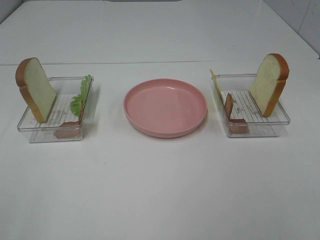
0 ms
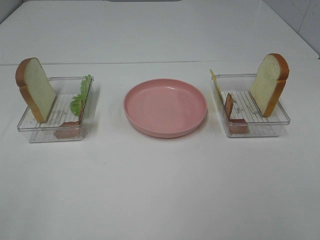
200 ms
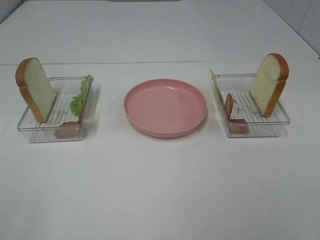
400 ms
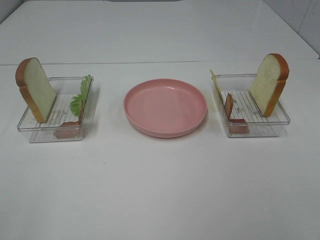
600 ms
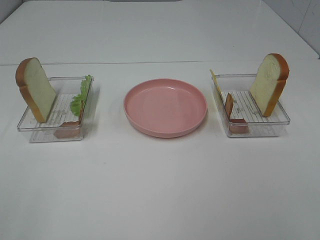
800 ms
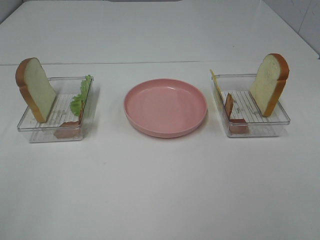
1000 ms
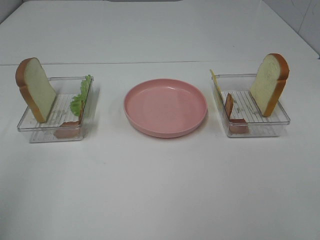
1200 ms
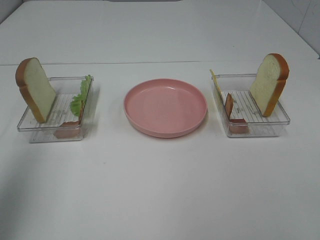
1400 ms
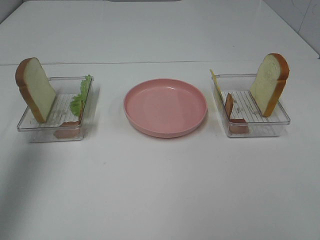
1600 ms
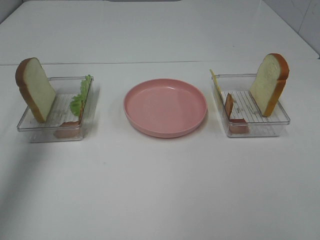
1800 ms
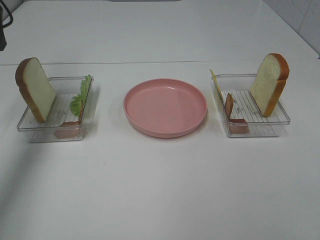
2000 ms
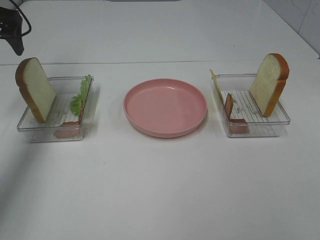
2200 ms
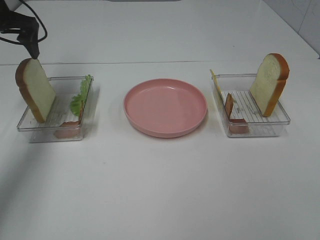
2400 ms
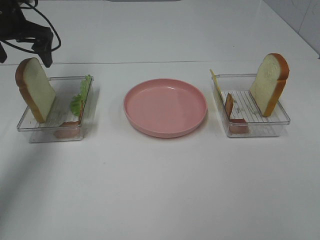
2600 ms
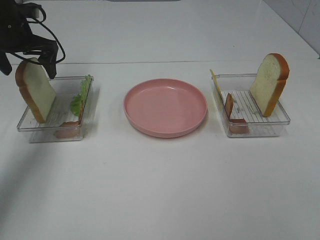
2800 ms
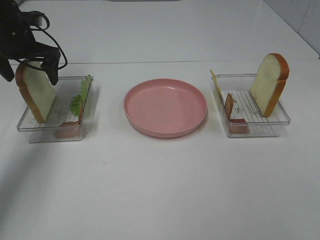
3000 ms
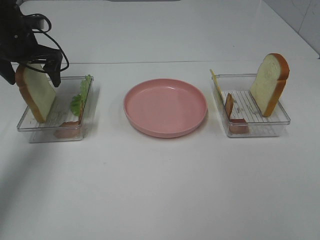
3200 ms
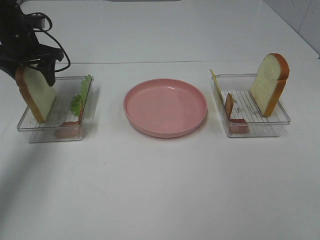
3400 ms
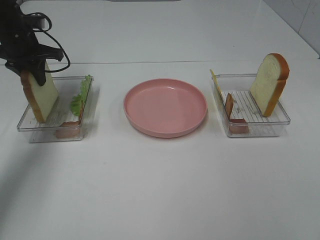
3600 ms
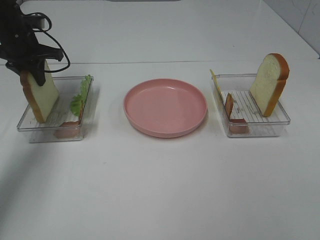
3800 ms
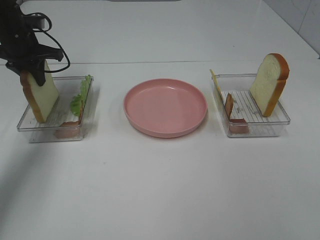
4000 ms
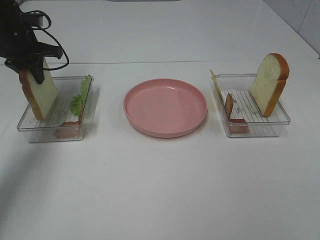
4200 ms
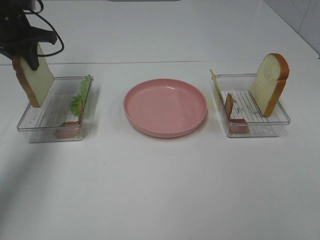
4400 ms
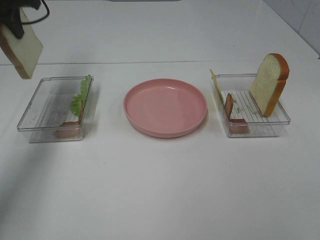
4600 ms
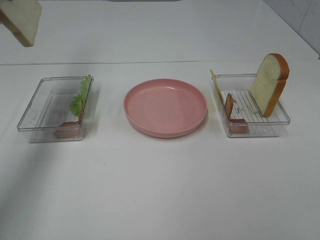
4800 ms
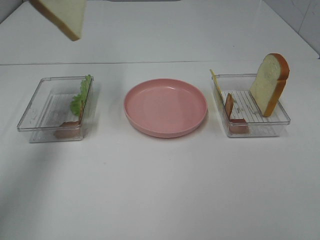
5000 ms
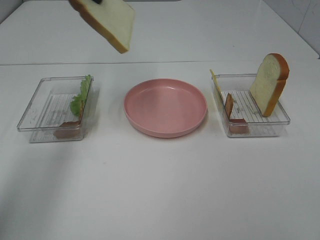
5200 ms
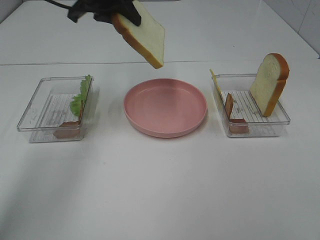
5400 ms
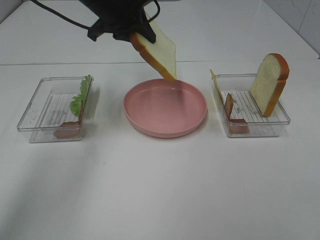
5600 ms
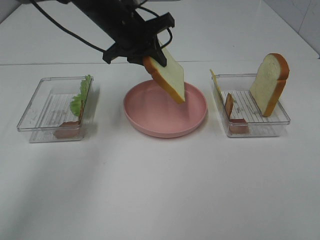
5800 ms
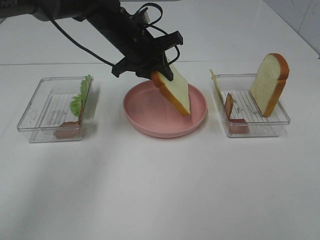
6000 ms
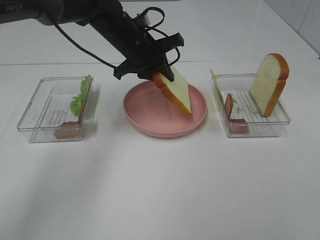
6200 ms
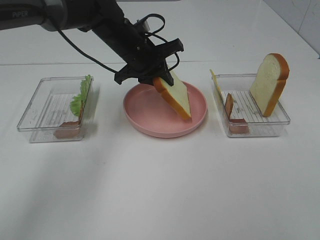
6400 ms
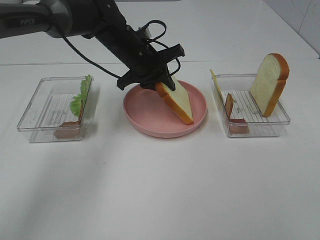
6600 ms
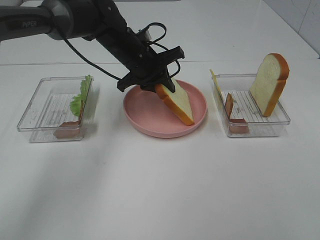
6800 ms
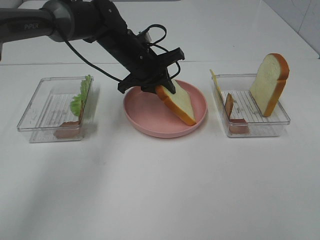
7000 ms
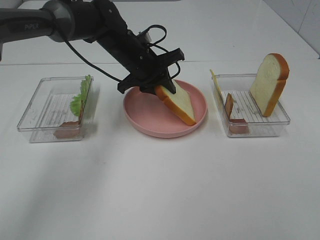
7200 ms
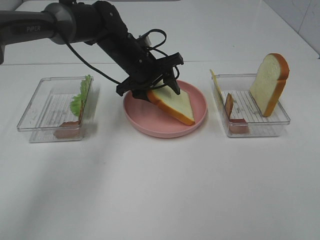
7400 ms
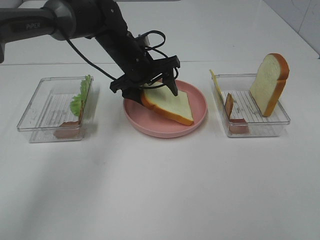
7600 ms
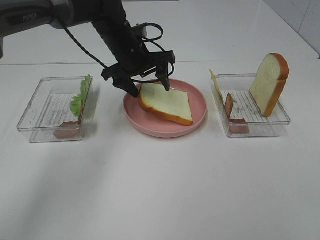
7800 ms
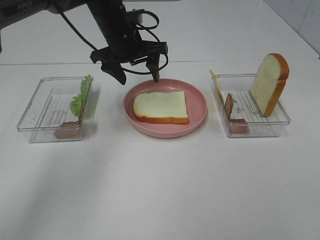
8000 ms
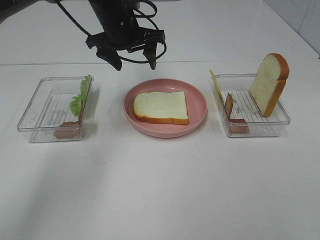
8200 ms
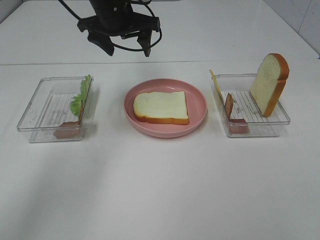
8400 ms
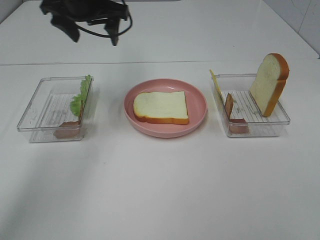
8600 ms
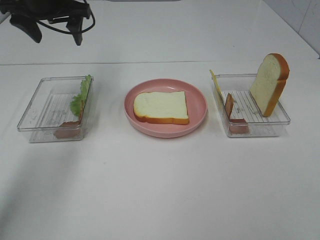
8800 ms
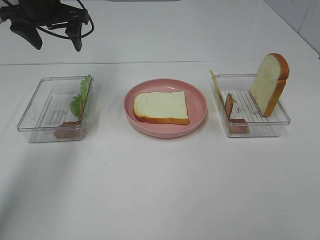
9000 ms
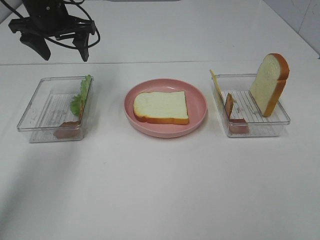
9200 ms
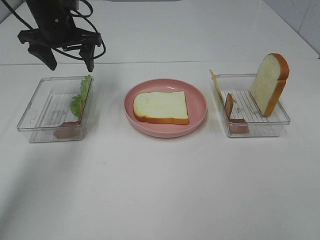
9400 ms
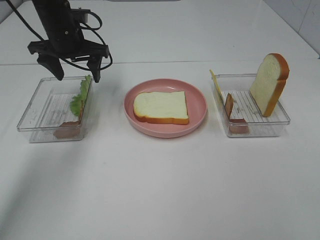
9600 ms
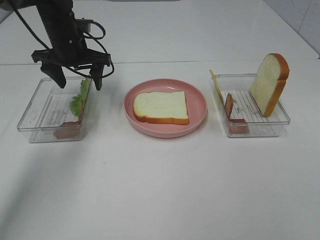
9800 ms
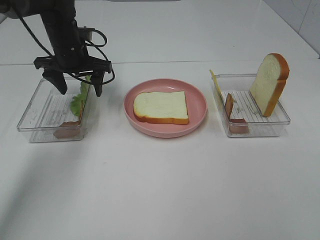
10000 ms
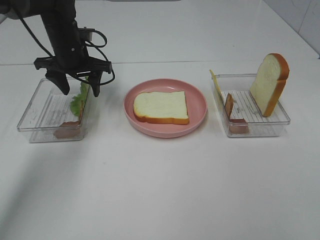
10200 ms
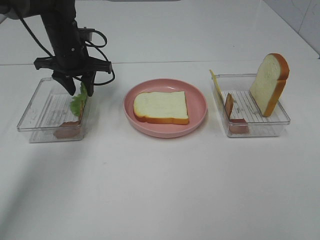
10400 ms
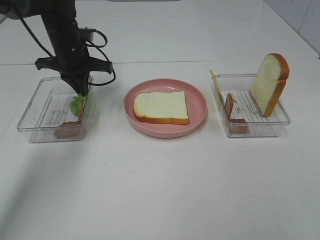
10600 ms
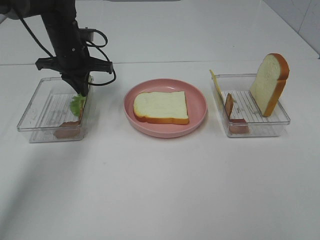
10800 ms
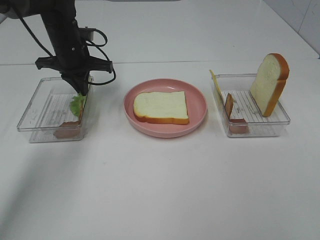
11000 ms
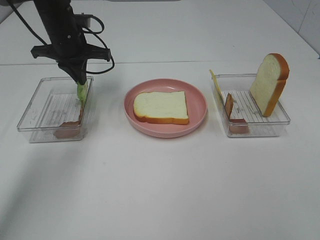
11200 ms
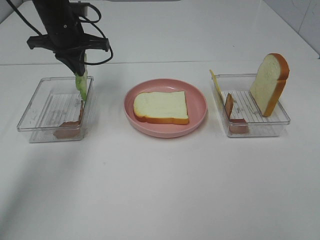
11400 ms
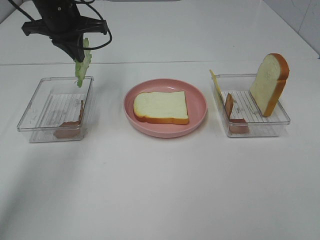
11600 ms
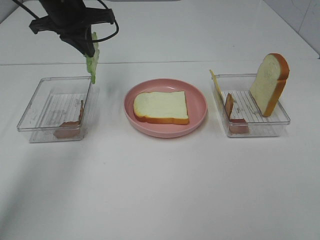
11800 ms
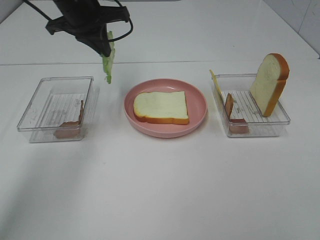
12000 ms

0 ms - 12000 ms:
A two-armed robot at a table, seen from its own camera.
Task of the whole recording: Make sandwiches.
Step, 0 ms - 3800 ms: Left hand:grab the bread slice.
Step, 4000 ms - 7800 ms: Left hand:place the bread slice on the plate.
Step, 8000 ms - 11000 ms: Left hand:grab the lettuce slice.
0 ms - 1600 ms: The left gripper goes some 25 cm forward.
1600 ms - 3000 ms: The left gripper heads forward and downward, covering approximately 30 cm.
3000 ms - 4400 ms: The left gripper closes its fingers.
4400 ms - 6000 ms: The left gripper heads to the right, covering approximately 25 cm.
6000 ms - 7600 ms: The left gripper opens up.
7600 ms - 9000 ms: The left gripper travels to the left and upward by about 20 cm.
9000 ms - 10400 ms: The left gripper goes roughly 10 cm downward, and closes.
10400 ms - 12000 ms: The left gripper is displaced upward by approximately 10 cm, and closes up.

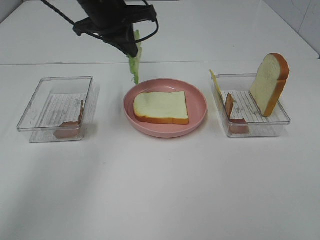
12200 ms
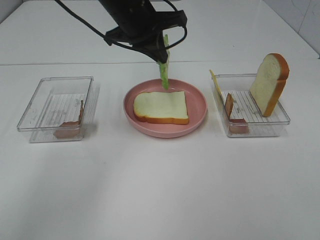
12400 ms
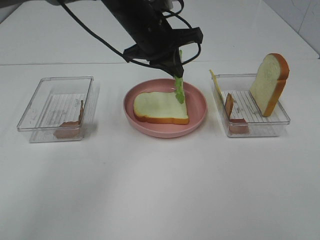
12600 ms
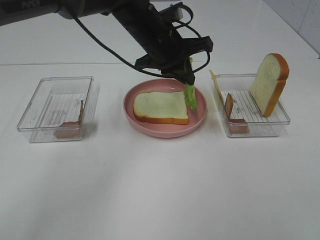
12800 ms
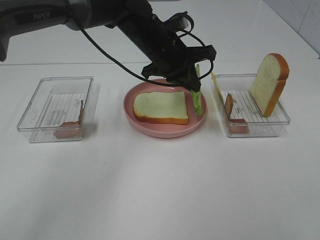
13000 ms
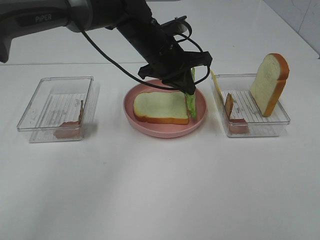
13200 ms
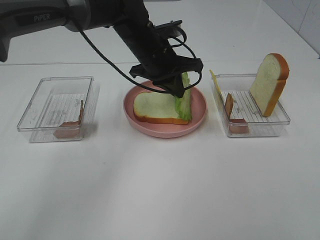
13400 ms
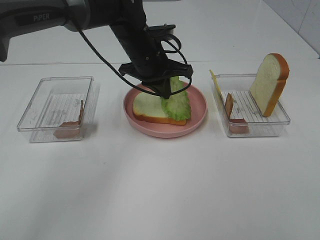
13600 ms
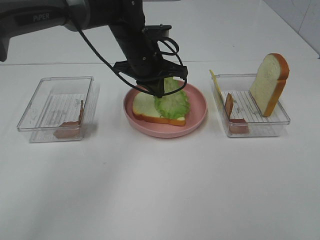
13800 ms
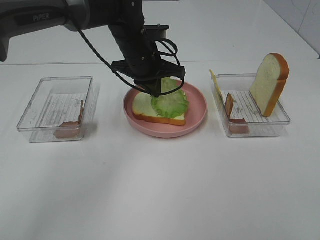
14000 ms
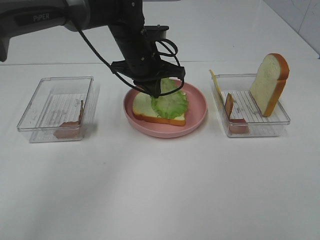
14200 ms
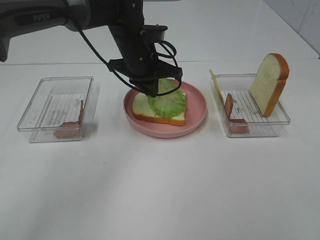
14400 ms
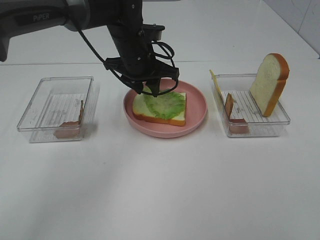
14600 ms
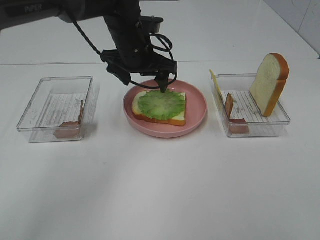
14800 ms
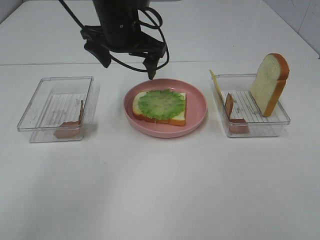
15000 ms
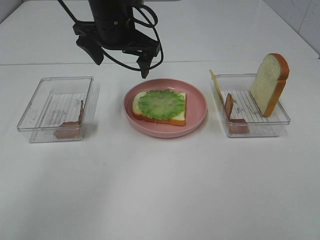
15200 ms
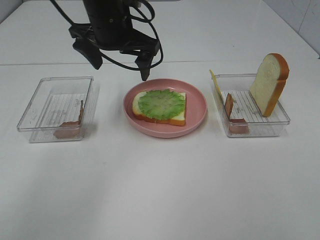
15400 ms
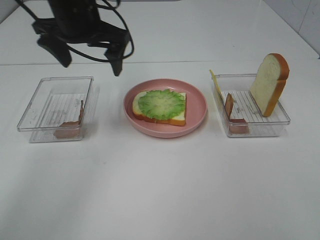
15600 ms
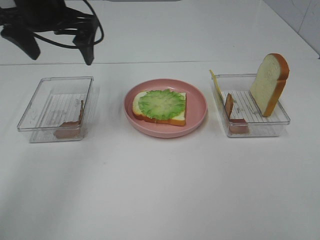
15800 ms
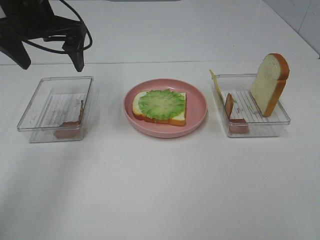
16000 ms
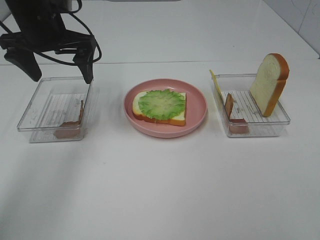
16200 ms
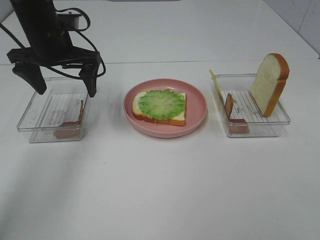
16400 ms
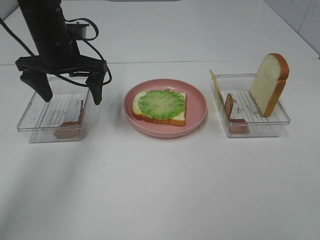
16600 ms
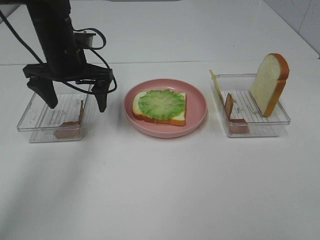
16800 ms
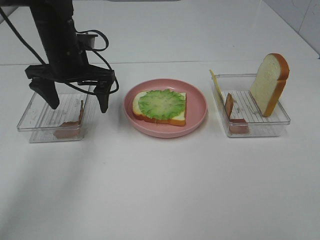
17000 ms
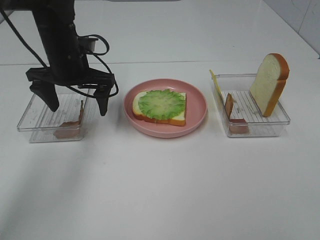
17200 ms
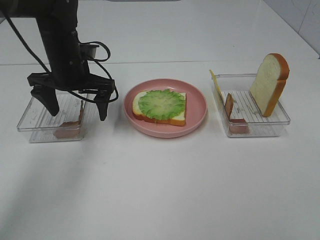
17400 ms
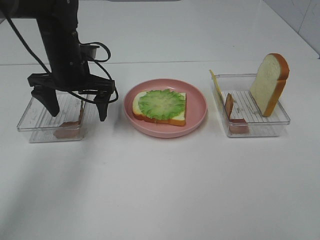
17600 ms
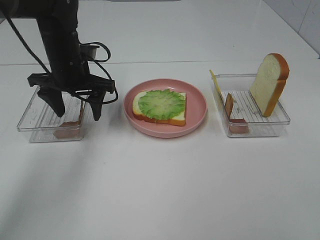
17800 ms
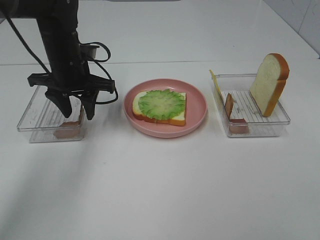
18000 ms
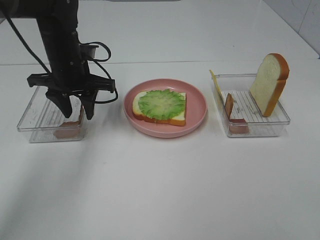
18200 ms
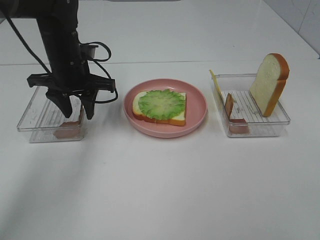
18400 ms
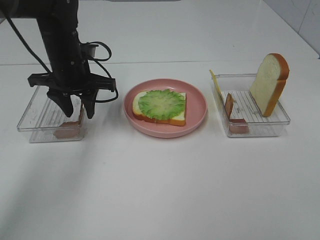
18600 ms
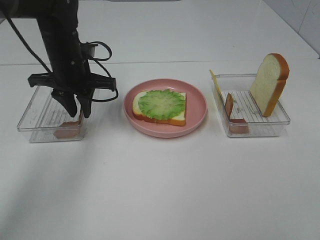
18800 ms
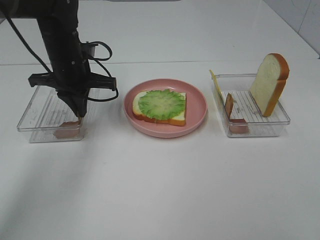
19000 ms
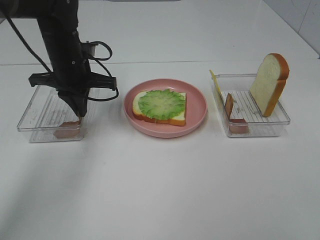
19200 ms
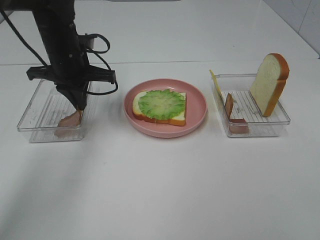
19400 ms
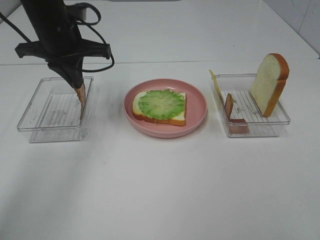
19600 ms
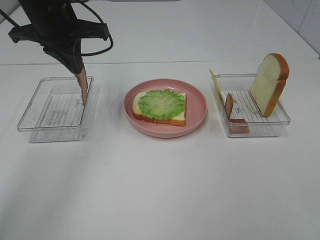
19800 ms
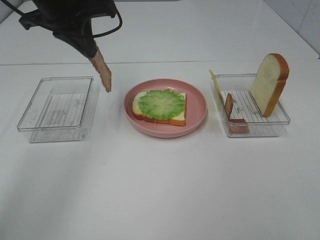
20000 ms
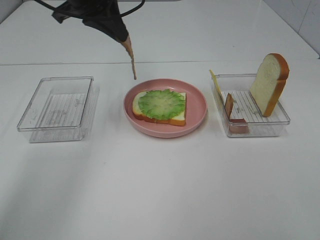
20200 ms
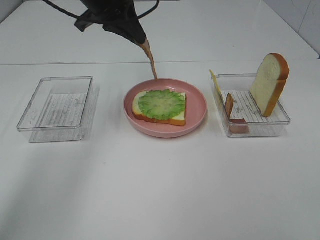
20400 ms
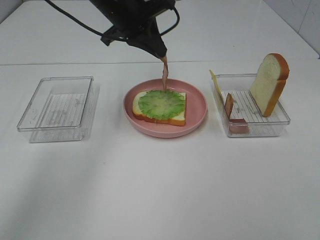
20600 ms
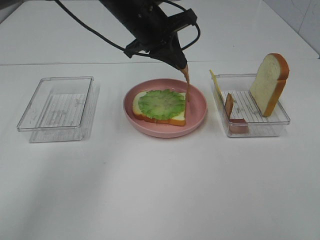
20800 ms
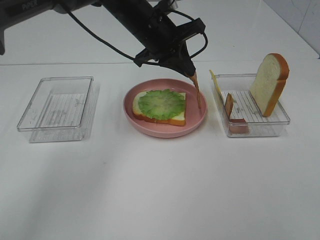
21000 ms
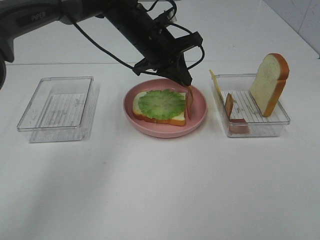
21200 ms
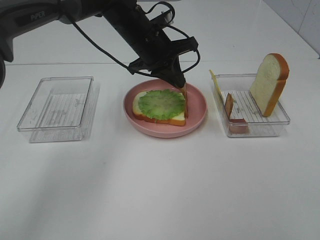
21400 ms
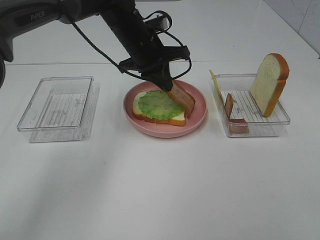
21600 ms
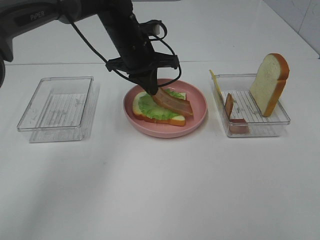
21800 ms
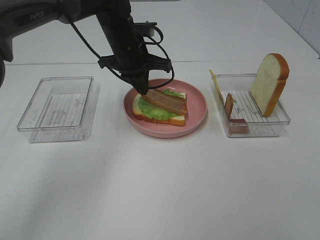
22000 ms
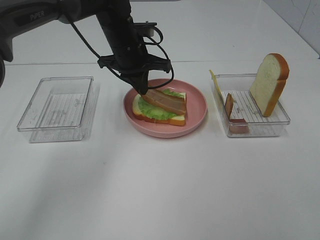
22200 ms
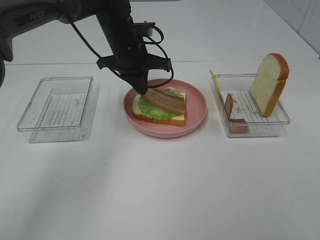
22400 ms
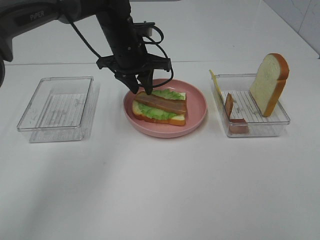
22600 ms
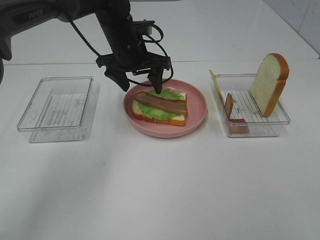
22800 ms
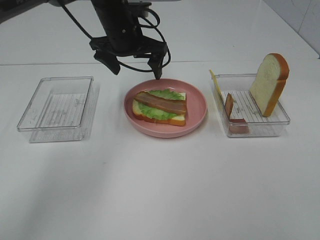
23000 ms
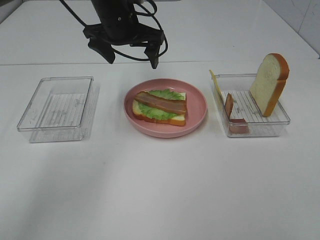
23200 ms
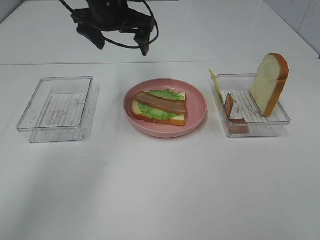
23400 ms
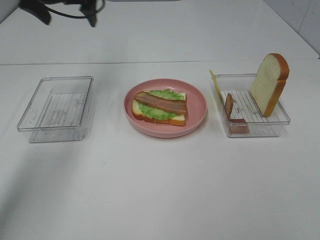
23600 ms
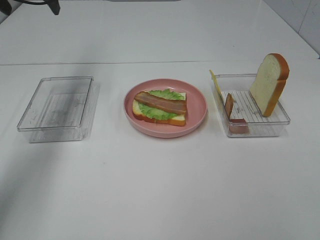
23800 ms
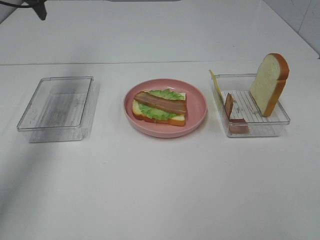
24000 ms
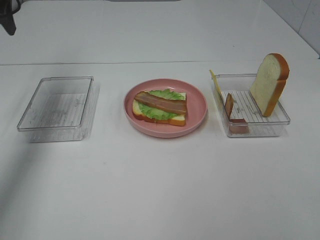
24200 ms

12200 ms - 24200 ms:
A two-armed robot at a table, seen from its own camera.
Task of the whole recording: Make sandwiches.
Step, 12200 ms - 14800 ms: Left hand:place the lettuce slice on the bread slice.
Step, 15000 ms - 19600 ms: Left hand:grab the bacon.
Step, 19800 ms - 23200 ms: Left hand:place bacon on lettuce slice.
12200 ms - 13800 ms: The left gripper heads downward and to the right, covering about 10 cm.
13800 ms - 15200 ms: The left gripper moves upward, some 10 cm, and opens.
15200 ms - 16600 ms: The left gripper goes about 10 cm to the left.
16600 ms - 18200 ms: The left gripper closes its fingers.
18200 ms - 19800 ms: The left gripper moves upward, about 10 cm, and closes up.
19800 ms - 21200 ms: The left gripper is displaced to the right and downward by roughly 15 cm.
21200 ms - 22600 ms: The left gripper opens.
22600 ms - 24200 ms: The left gripper goes some 30 cm to the left and upward, and opens.
